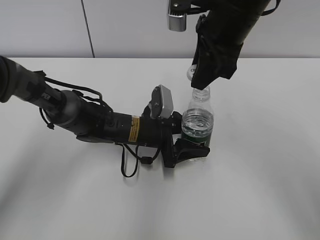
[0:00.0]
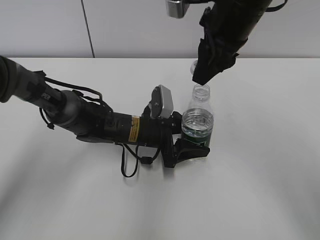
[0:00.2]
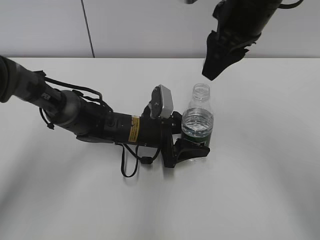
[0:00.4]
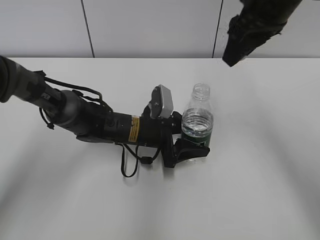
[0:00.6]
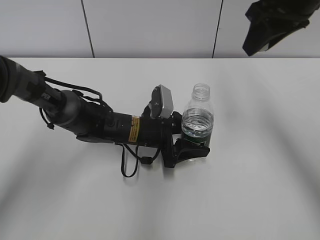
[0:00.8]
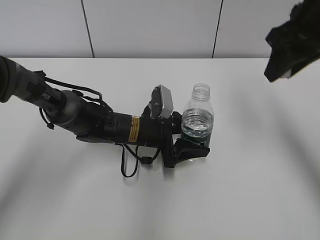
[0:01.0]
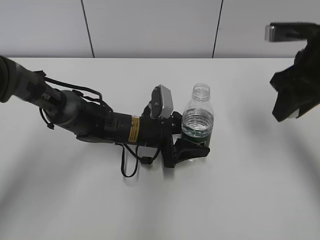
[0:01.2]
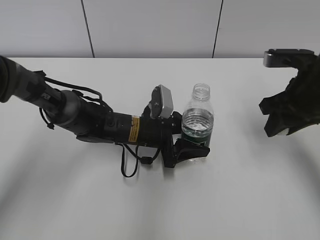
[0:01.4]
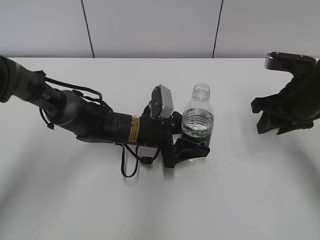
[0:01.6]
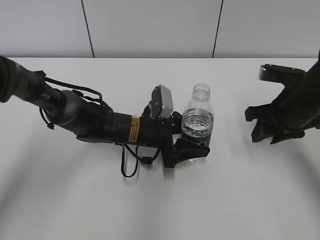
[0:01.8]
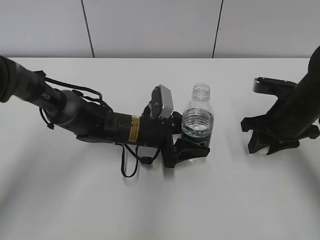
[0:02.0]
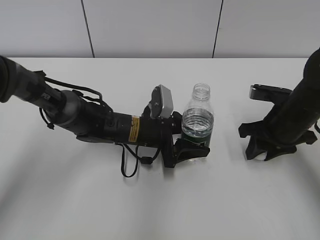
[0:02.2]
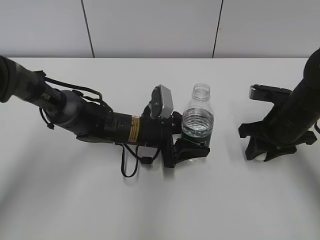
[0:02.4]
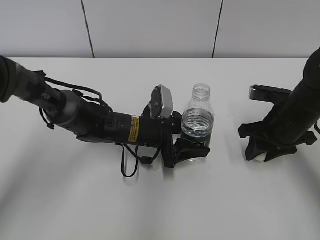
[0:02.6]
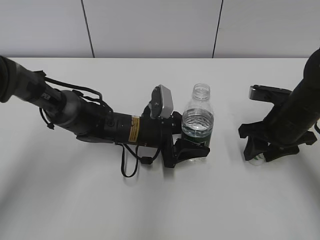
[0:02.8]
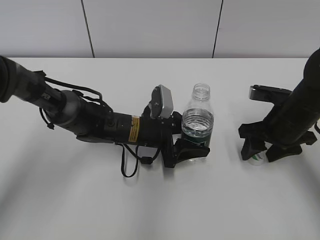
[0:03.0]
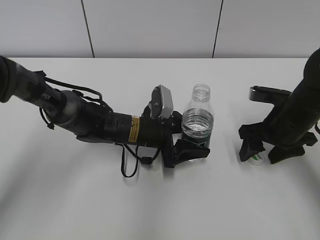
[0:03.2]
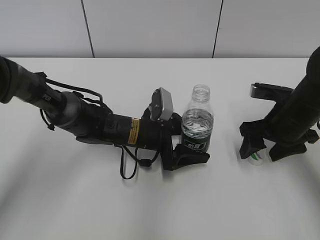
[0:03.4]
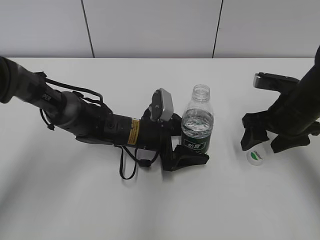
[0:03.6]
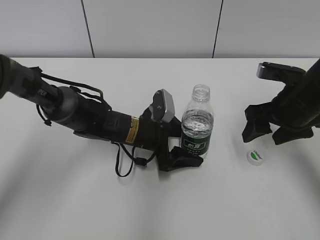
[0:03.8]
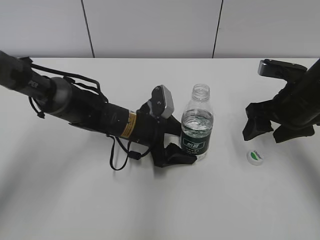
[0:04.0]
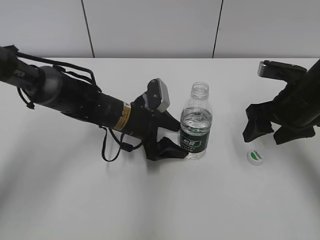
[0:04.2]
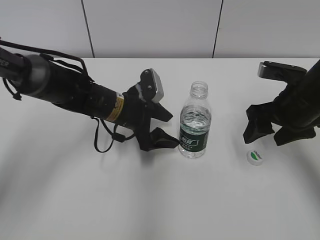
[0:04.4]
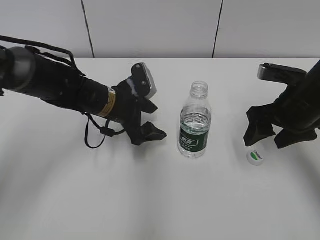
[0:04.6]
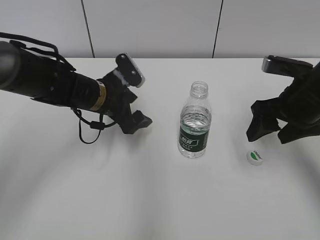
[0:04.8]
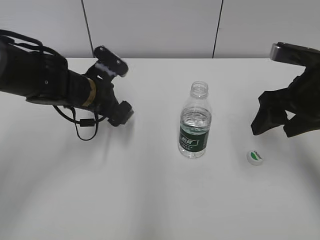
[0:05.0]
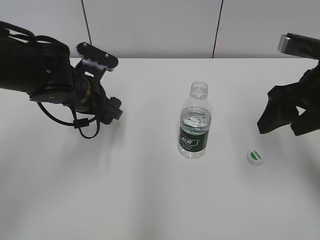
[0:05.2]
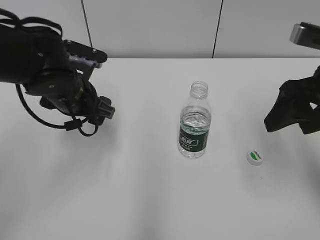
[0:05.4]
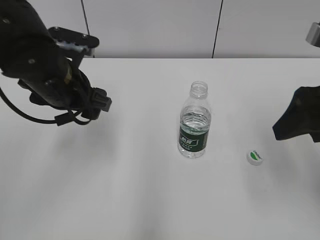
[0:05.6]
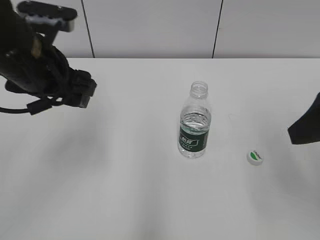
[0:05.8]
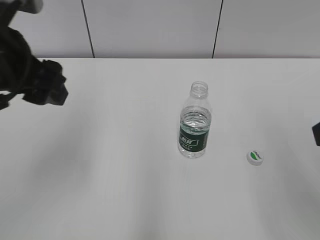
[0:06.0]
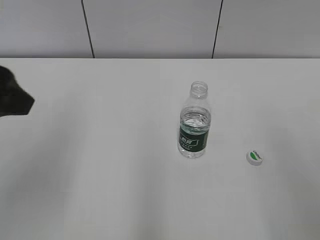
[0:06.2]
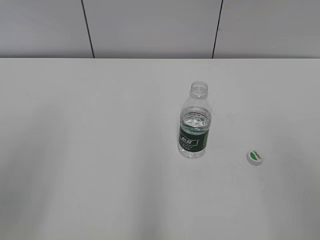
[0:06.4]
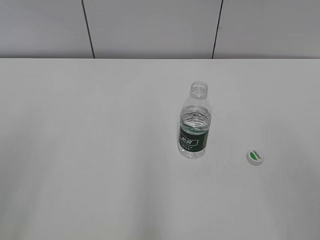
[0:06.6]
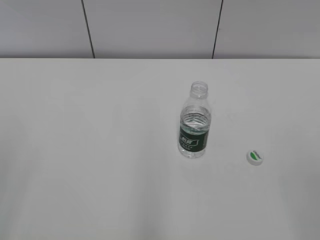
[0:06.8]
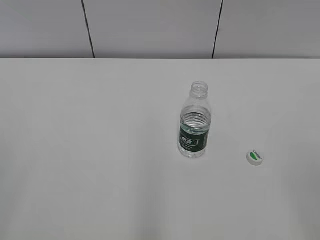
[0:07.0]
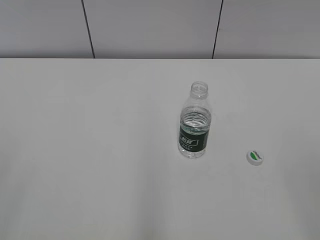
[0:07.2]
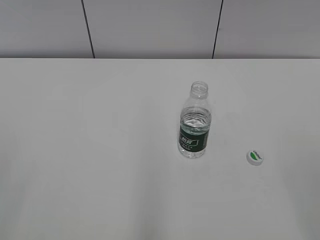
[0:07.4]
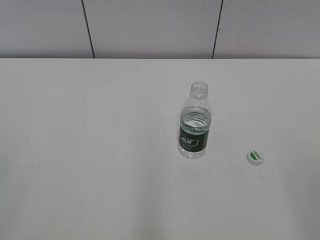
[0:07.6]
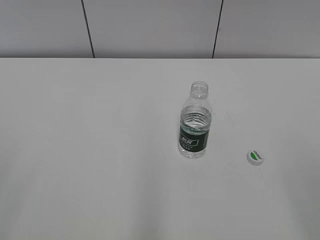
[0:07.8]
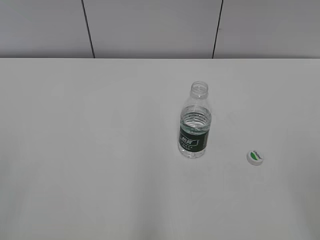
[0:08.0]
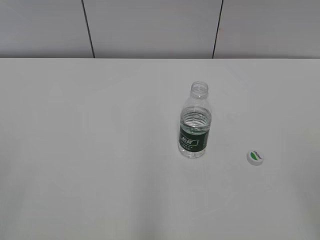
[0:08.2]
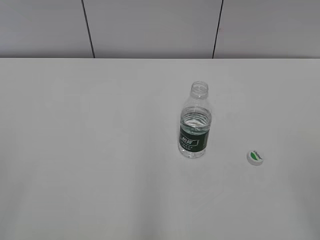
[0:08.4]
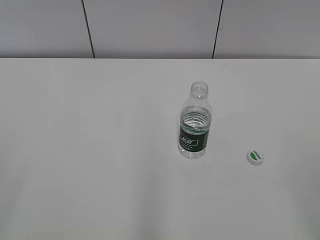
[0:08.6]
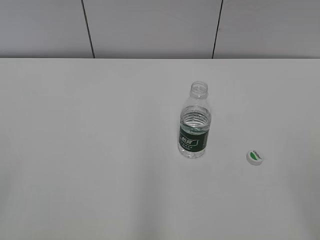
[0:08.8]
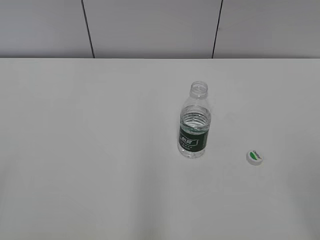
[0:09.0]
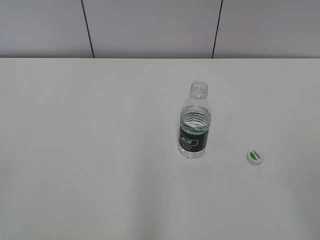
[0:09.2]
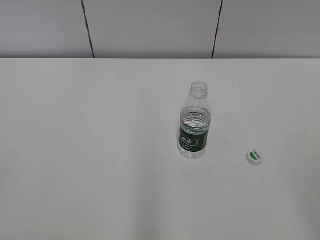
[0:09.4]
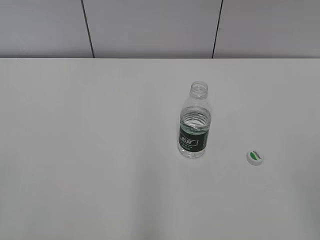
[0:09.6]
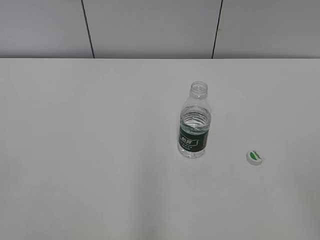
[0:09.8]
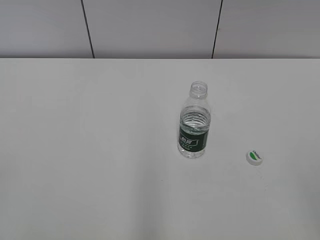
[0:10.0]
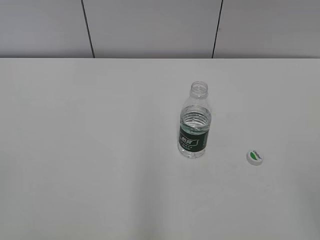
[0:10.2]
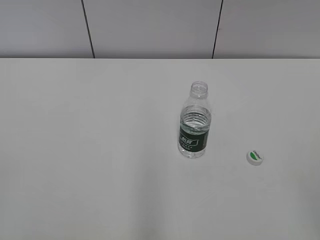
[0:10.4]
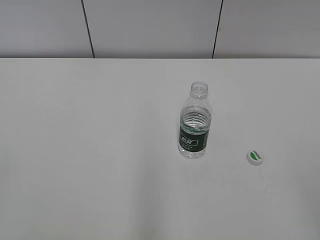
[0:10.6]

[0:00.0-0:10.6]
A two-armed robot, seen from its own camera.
Step, 0:00.2 to 0:02.6: Place the bottle cap on the table with the right hand.
0:00.0 to 0:01.6: The right gripper is displaced to the right and downward by about 20 cm.
0:01.6 to 0:03.0: The right gripper goes approximately 5 cm downward, and opens its fingers.
0:03.0 to 0:04.6: The right gripper shifts approximately 5 cm upward. Meanwhile the left gripper moves upward and to the left, roughly 5 cm, and opens.
0:04.6 to 0:06.0: The right gripper goes approximately 20 cm backward and upward, while the left gripper shifts about 25 cm upward, backward and to the left.
0:06.0 to 0:07.6: The left gripper shifts some 25 cm backward and to the left, while the right gripper goes about 15 cm backward.
